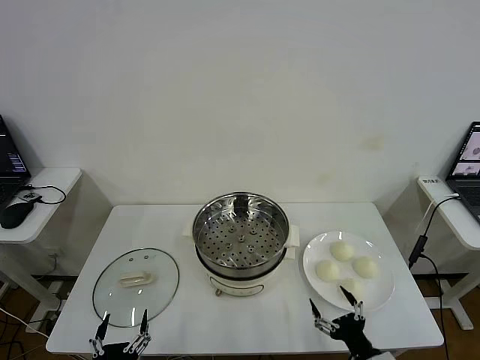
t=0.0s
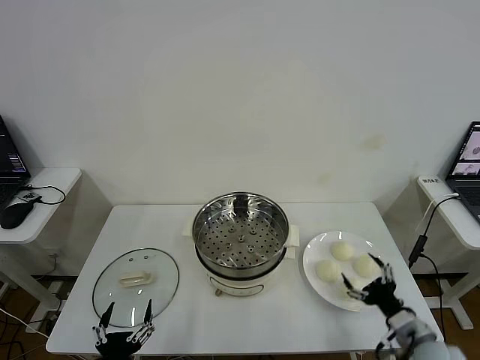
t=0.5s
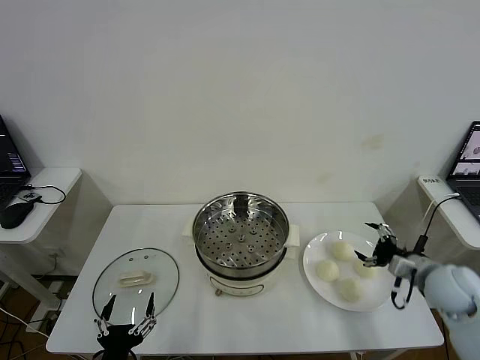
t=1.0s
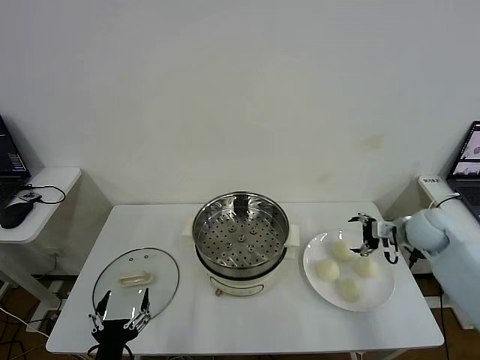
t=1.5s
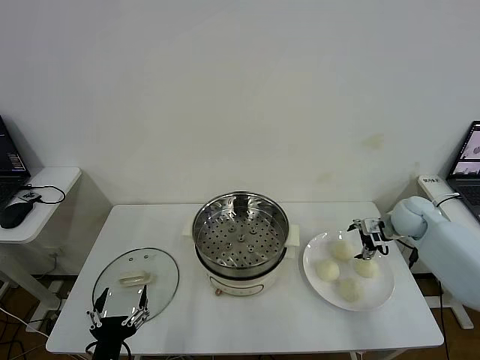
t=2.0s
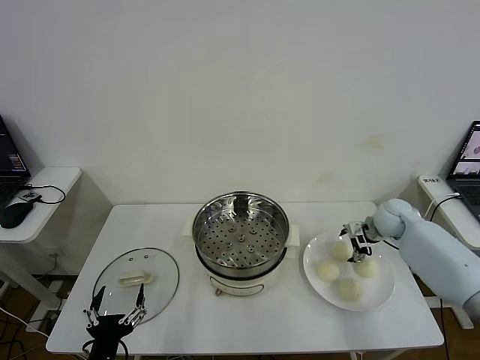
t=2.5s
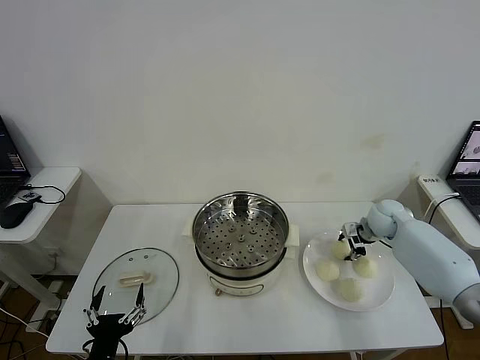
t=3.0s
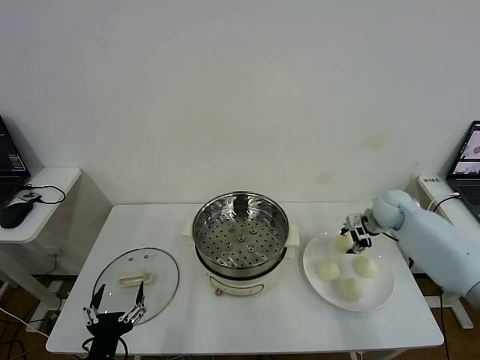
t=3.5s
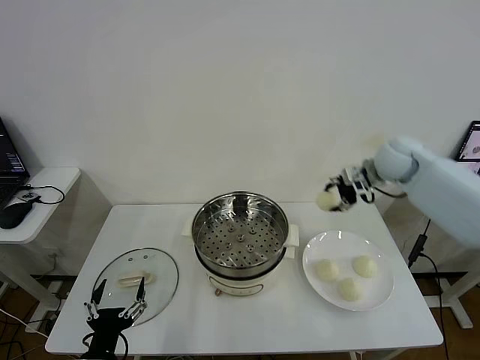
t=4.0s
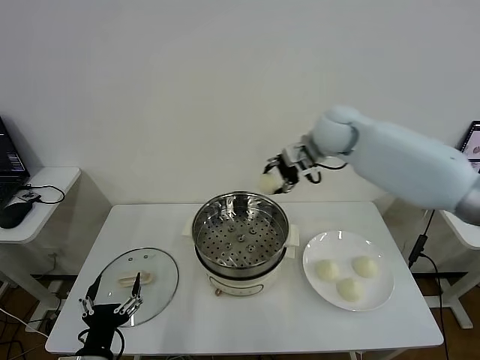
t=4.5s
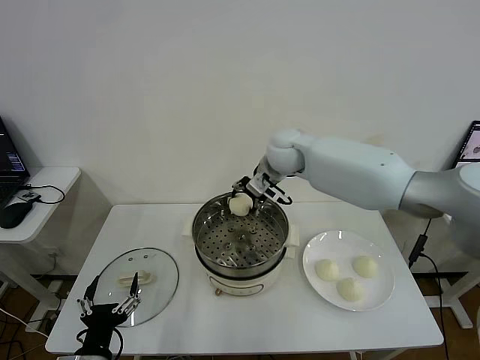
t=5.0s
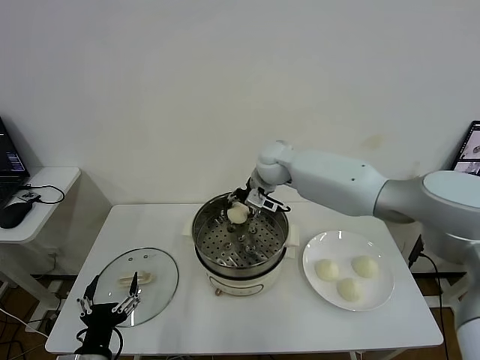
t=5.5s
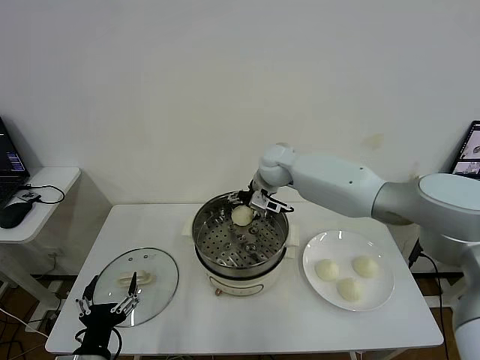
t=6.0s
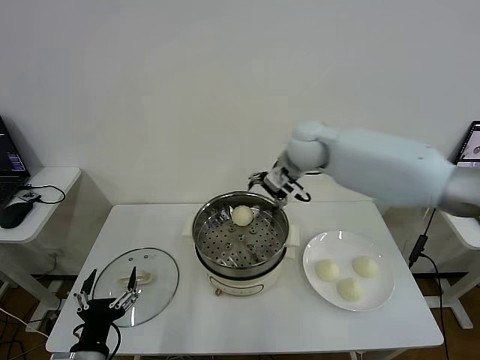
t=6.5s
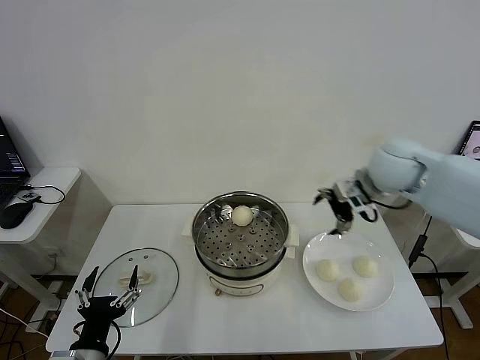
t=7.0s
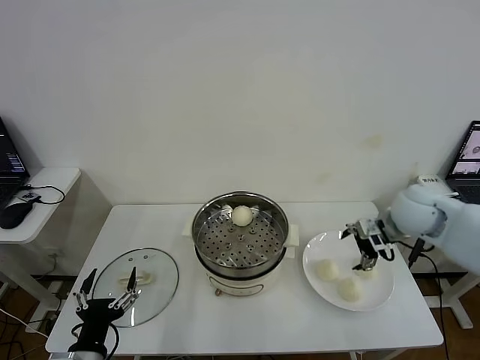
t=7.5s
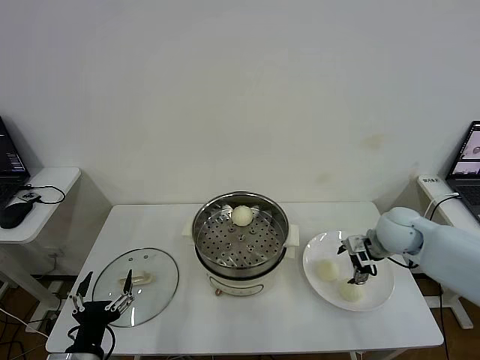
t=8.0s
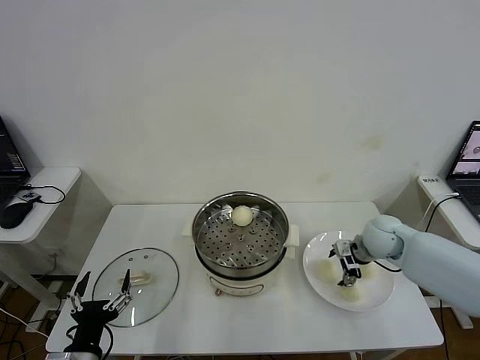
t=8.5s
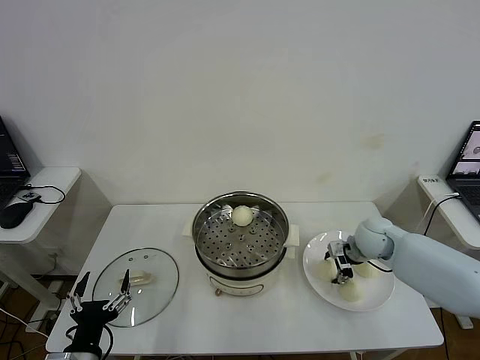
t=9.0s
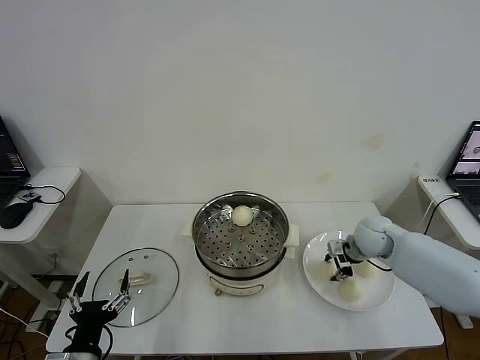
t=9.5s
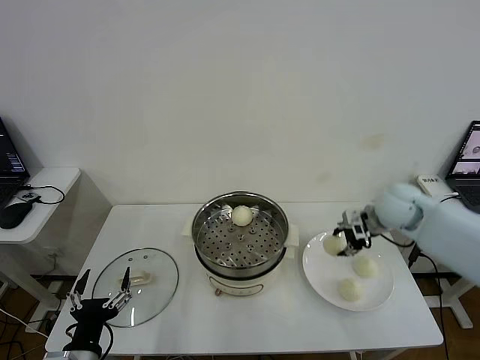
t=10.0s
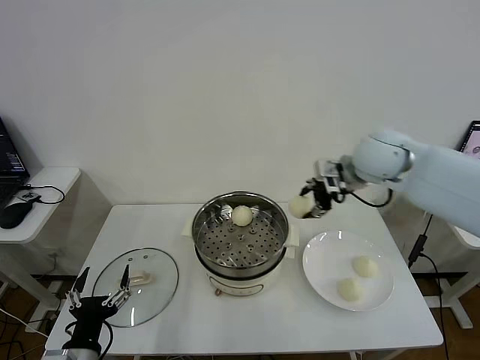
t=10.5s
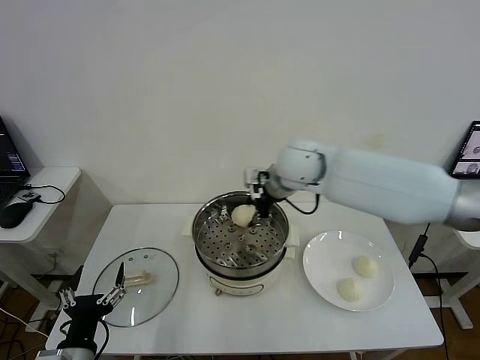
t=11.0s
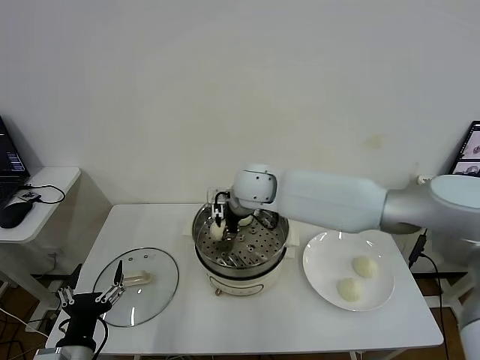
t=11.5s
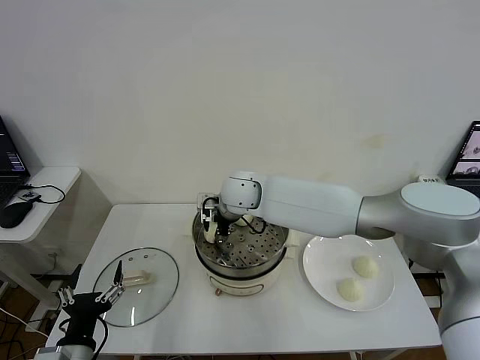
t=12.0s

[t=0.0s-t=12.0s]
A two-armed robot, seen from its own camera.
Step, t=0.0s to t=3.0s: Grasp the baozi in the plate with right gripper.
Step, t=3.5s to t=6.0s: Place the baozi on the steamer with right gripper.
Step, t=6.5s to t=9.0s: Grasp the baozi in the plate with right gripper.
t=2.0s to t=4.0s: The right gripper moves upward and to the left, approximately 20 cm, and closes up.
t=4.0s to t=6.0s: The right gripper goes roughly 20 cm to the left, and opens its fingers.
t=6.0s to t=8.0s: The right gripper travels to the right and backward by about 30 cm.
t=8.0s to t=10.0s: The right gripper moves upward, some 10 cm, and closes up.
t=10.0s to t=12.0s: The right gripper heads to the left, covering about 35 cm.

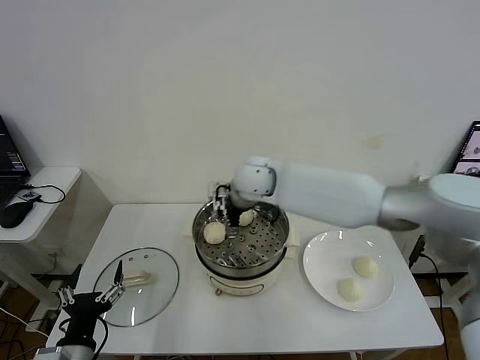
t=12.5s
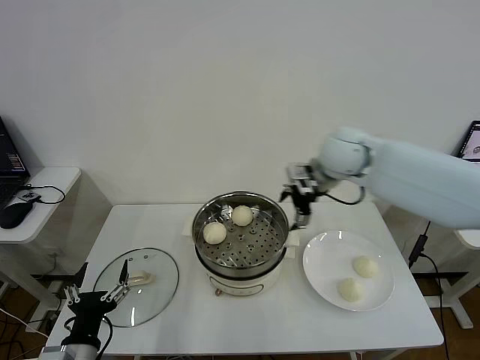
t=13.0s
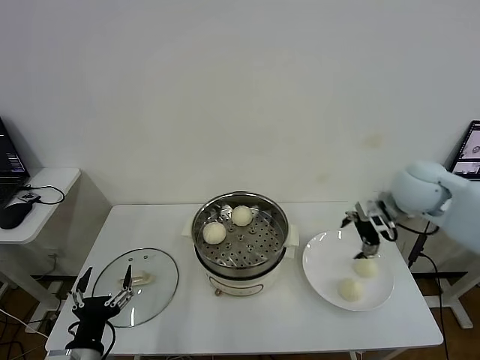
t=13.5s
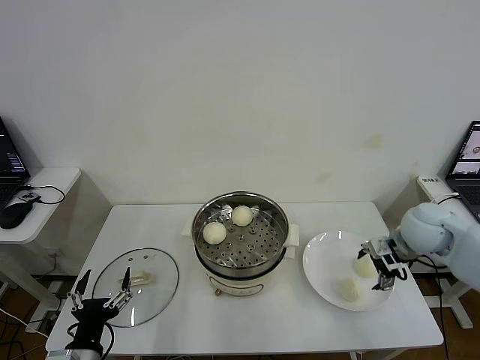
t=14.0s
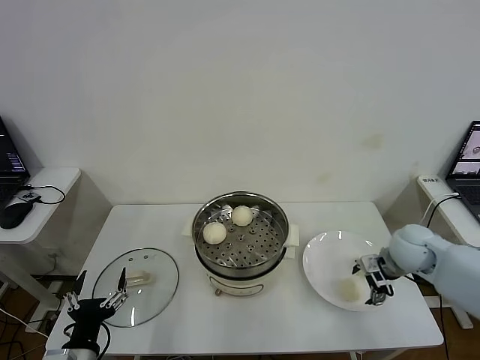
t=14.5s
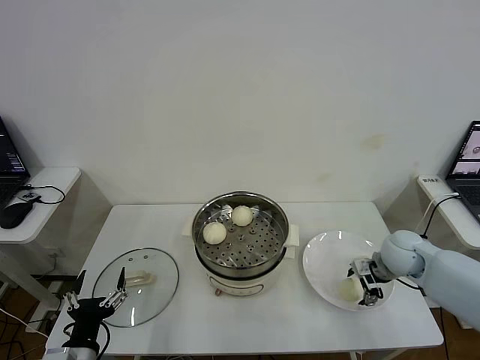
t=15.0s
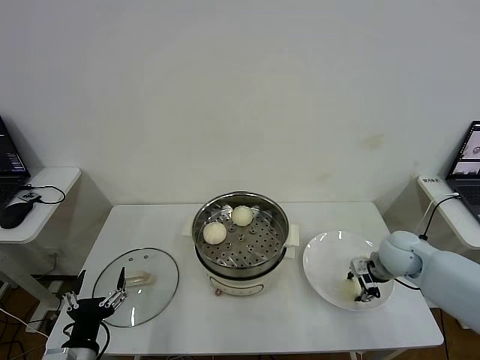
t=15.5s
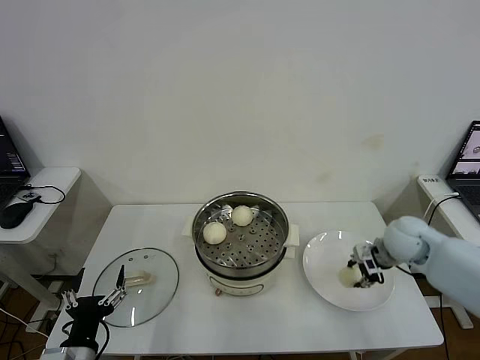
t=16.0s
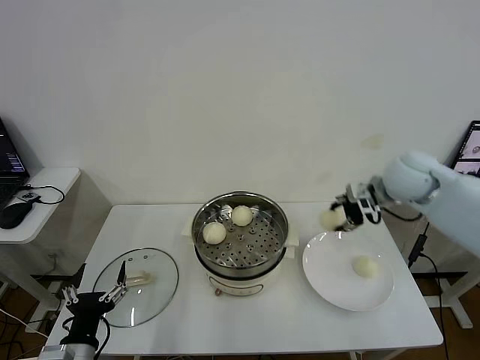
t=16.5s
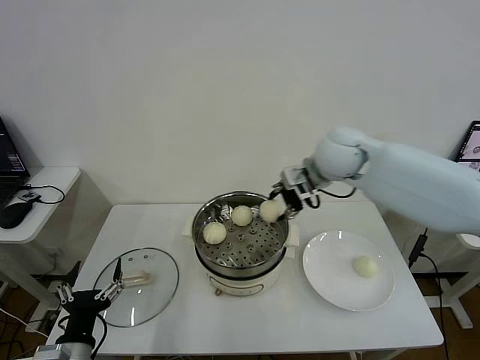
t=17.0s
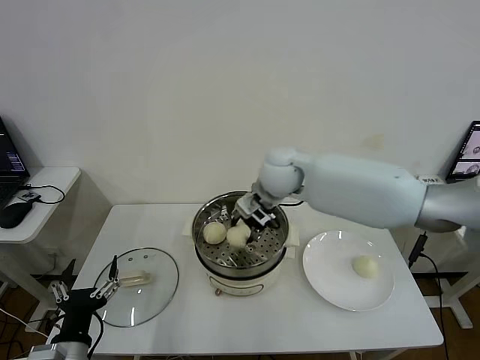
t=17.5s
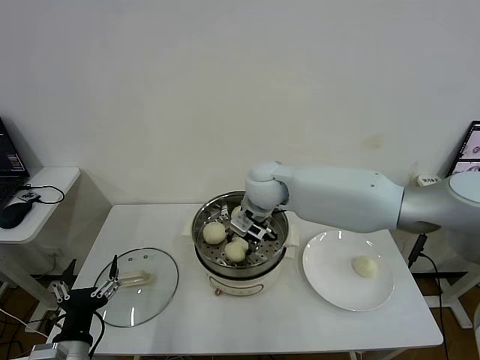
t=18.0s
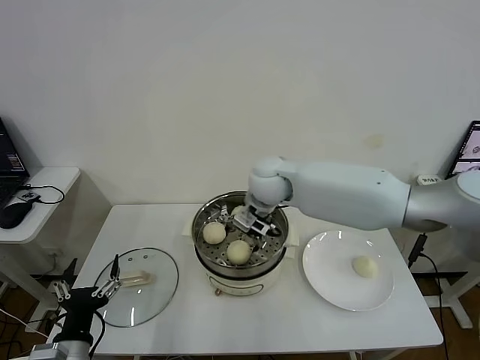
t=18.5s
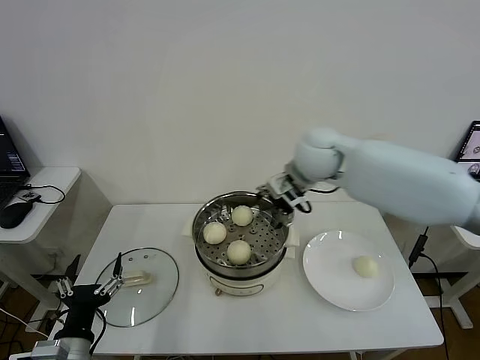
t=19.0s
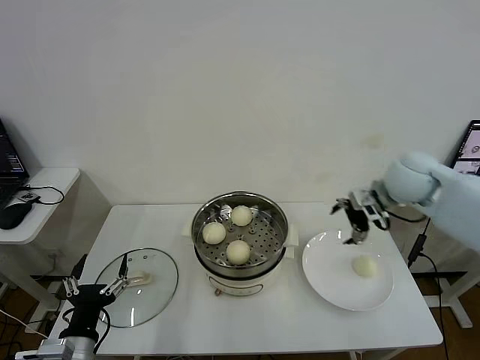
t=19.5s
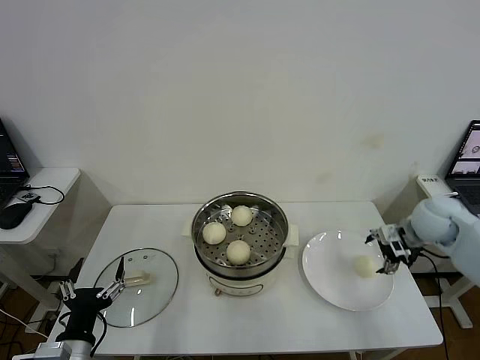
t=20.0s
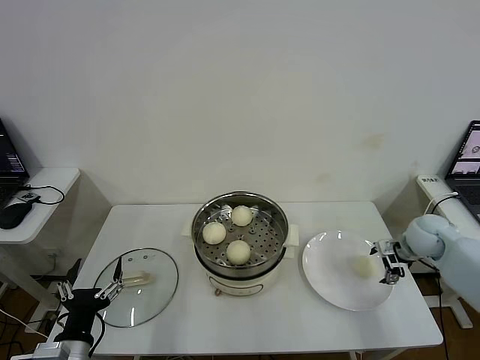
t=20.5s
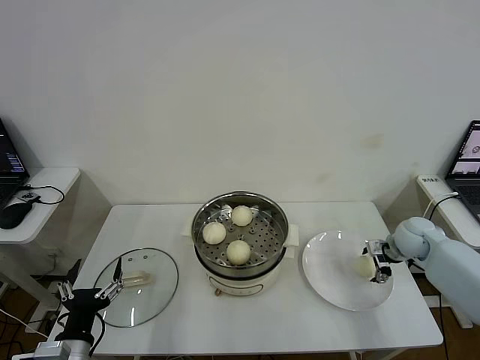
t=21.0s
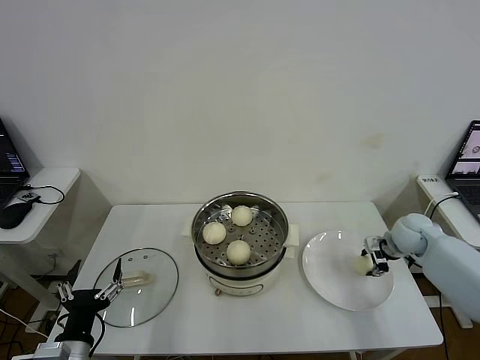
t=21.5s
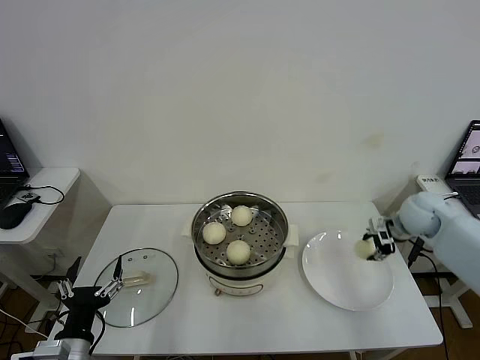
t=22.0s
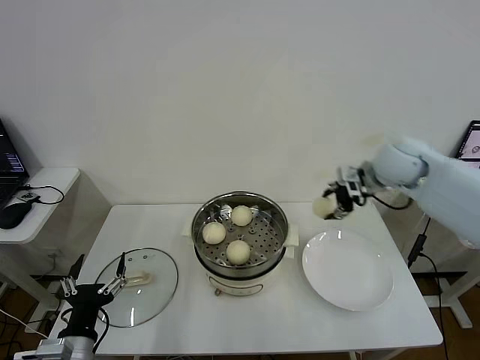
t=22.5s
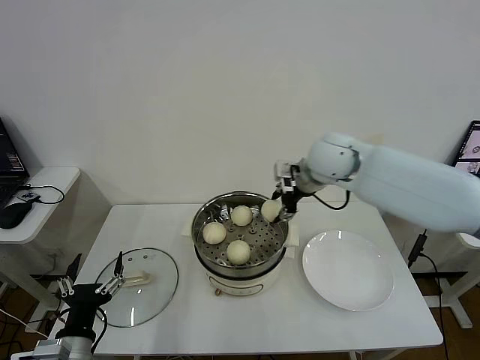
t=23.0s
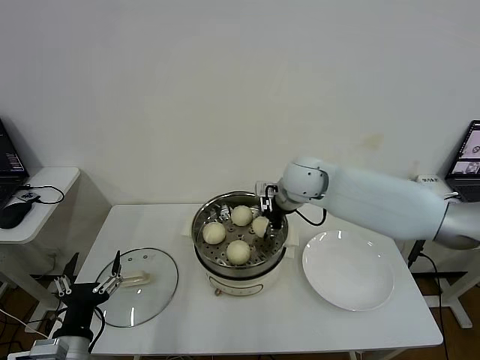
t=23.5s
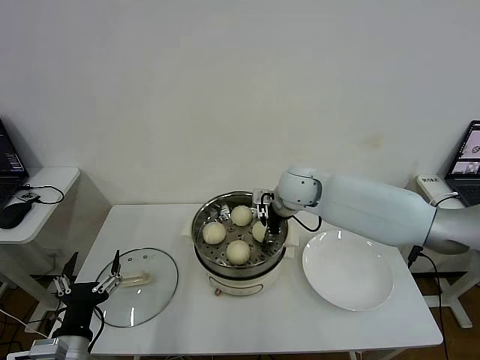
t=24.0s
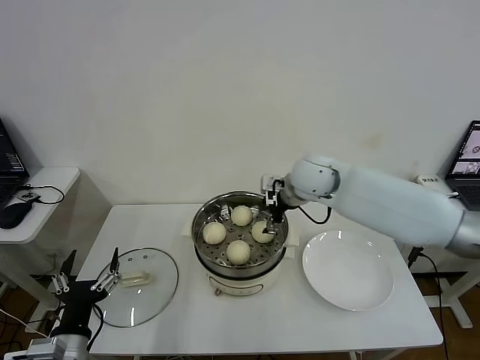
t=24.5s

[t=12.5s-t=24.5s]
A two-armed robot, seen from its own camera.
Step, t=12.5s to t=15.5s: Grasp the baozi in the plate with right gripper.
Step, t=16.0s to t=18.5s: Place the baozi on the steamer with right gripper.
Step, t=19.0s to t=21.5s: Grasp the baozi in the plate with right gripper.
Step, t=22.0s to t=24.0s: Place the baozi on the steamer with right gripper.
t=12.5s to t=14.5s: The right gripper travels to the right and downward by about 35 cm.
t=14.5s to t=16.5s: The right gripper is displaced upward and forward by some 20 cm, and closes up.
t=16.5s to t=18.5s: The right gripper moves to the left, roughly 25 cm, and opens.
t=18.5s to t=20.5s: The right gripper heads to the right, covering roughly 40 cm.
t=20.5s to t=22.5s: The right gripper is displaced upward and to the left by approximately 25 cm, and closes its fingers.
t=22.5s to t=24.5s: The right gripper shifts roughly 15 cm to the left, and opens its fingers.

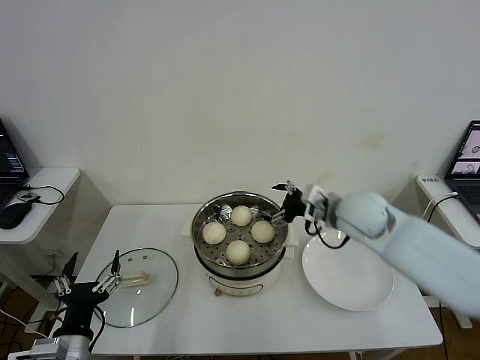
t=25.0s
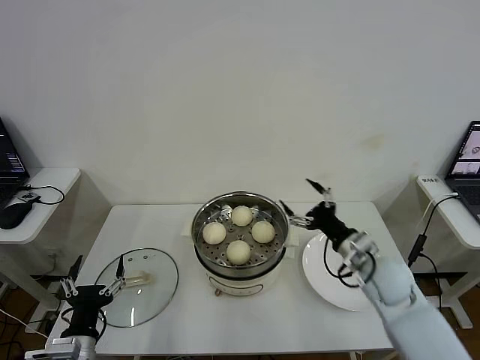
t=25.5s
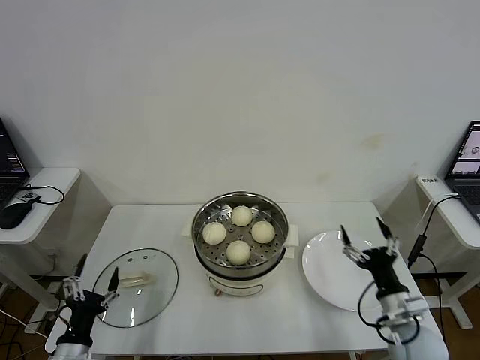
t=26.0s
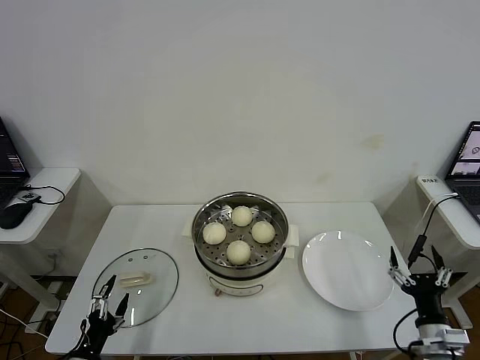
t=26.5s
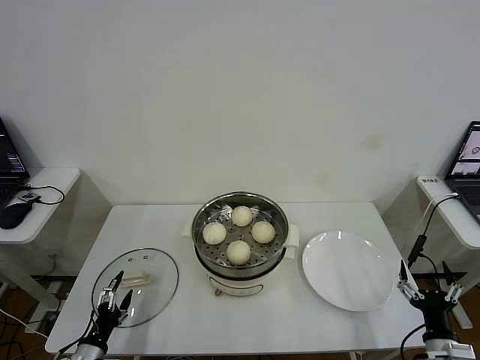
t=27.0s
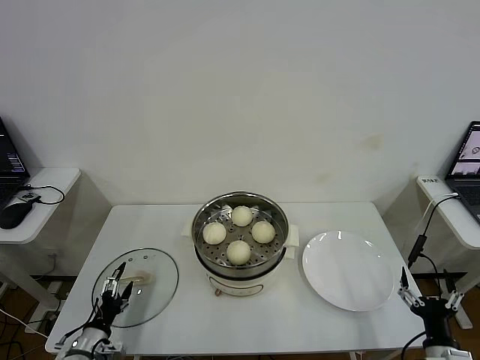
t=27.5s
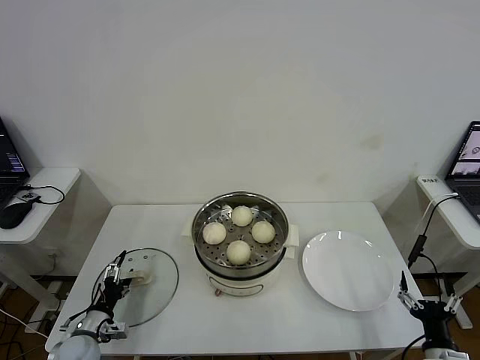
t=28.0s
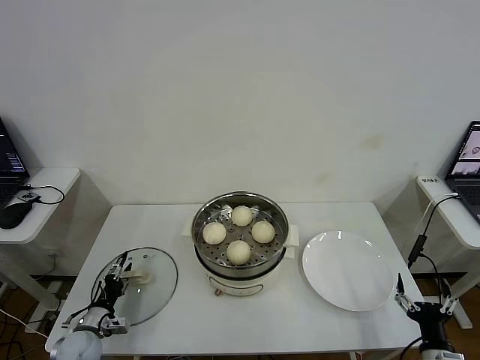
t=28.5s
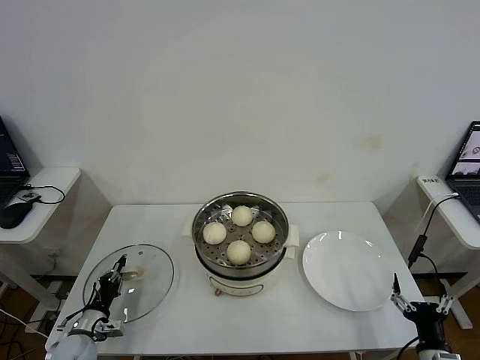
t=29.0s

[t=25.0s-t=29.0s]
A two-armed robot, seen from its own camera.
t=25.0s to t=27.0s: The right gripper is displaced backward, downward and to the right by some 40 cm. Meanwhile the left gripper is displaced downward and to the left by approximately 15 cm.
t=27.0s to t=29.0s: The left gripper travels forward by some 10 cm, and closes up.
